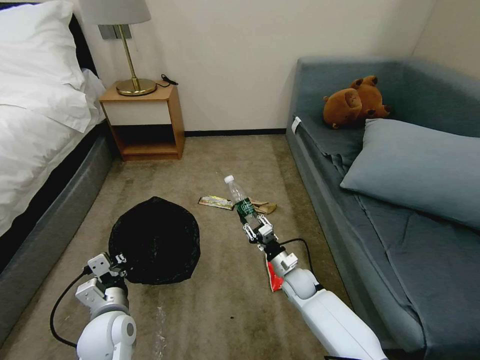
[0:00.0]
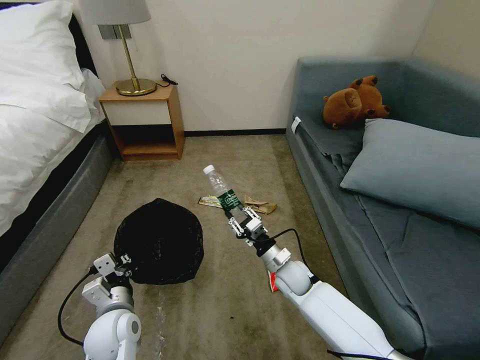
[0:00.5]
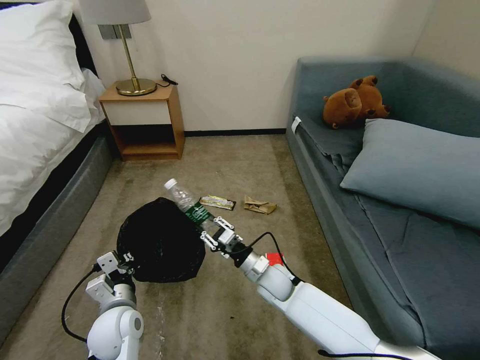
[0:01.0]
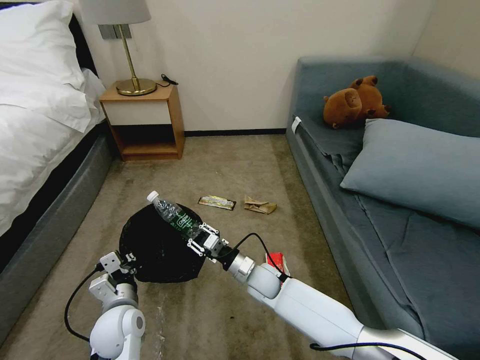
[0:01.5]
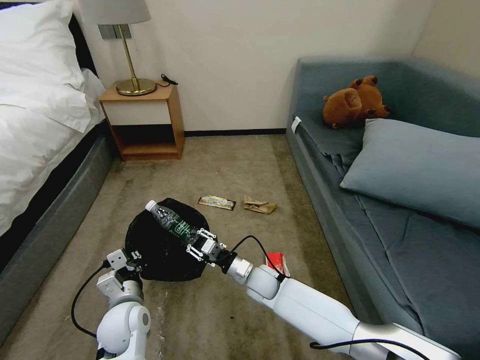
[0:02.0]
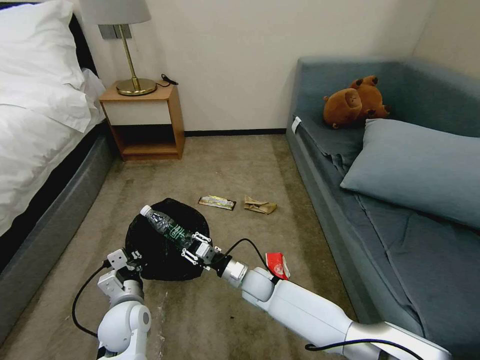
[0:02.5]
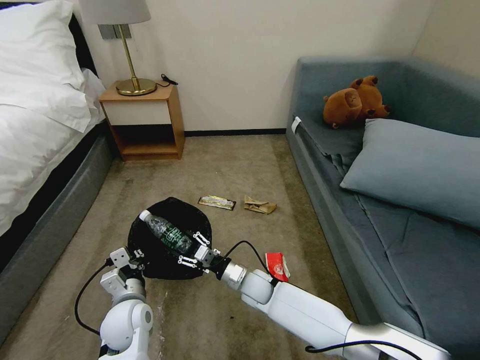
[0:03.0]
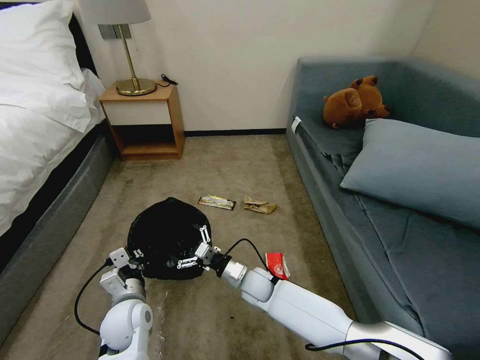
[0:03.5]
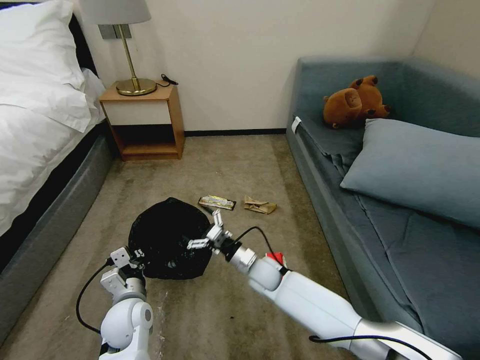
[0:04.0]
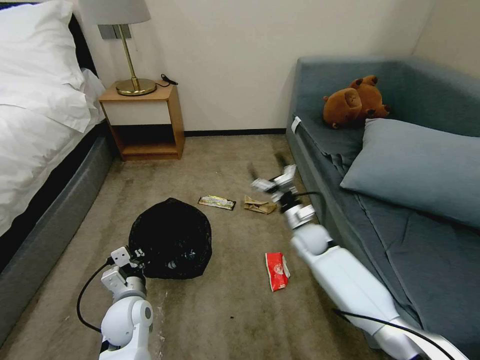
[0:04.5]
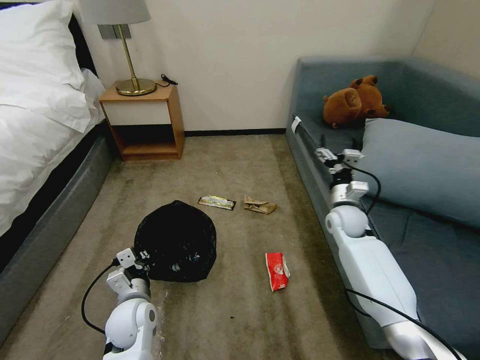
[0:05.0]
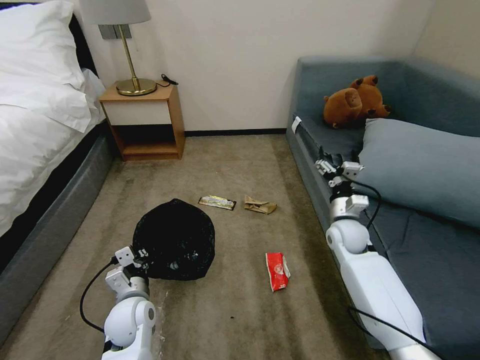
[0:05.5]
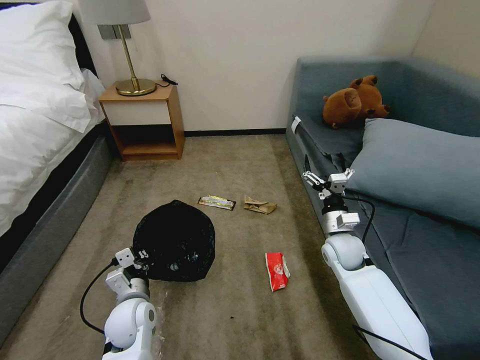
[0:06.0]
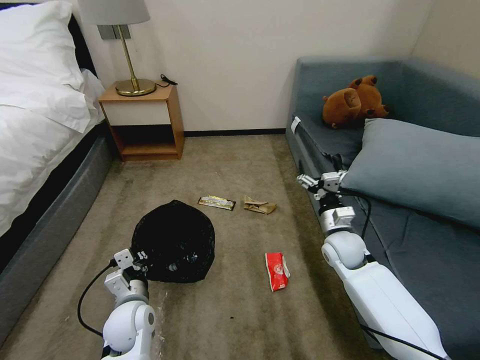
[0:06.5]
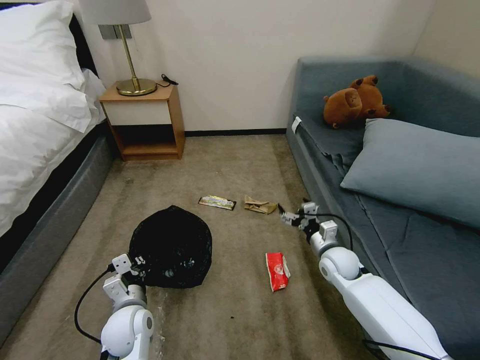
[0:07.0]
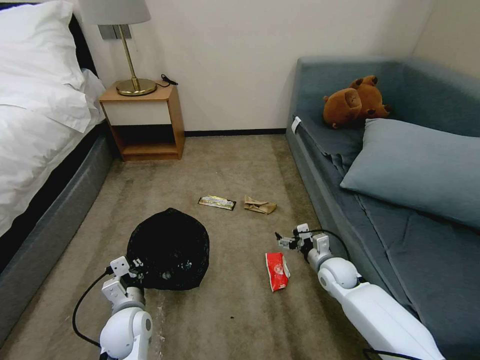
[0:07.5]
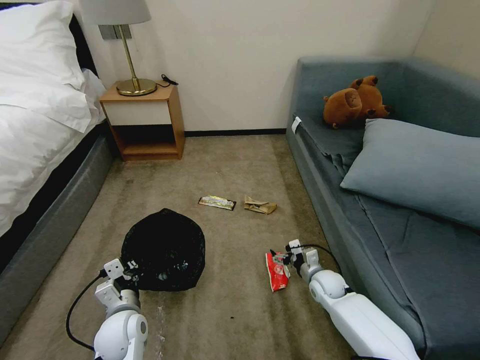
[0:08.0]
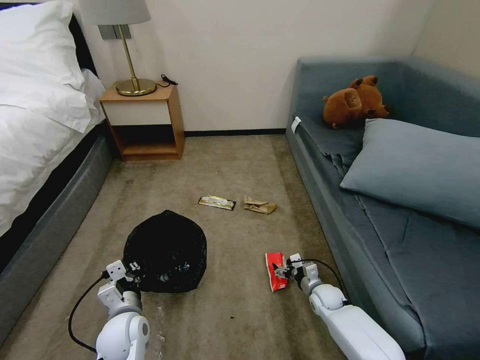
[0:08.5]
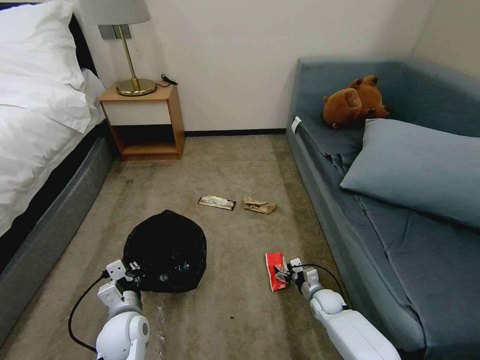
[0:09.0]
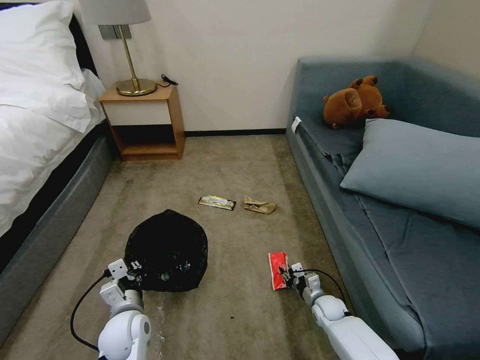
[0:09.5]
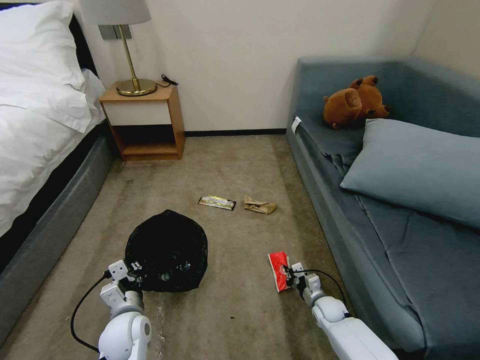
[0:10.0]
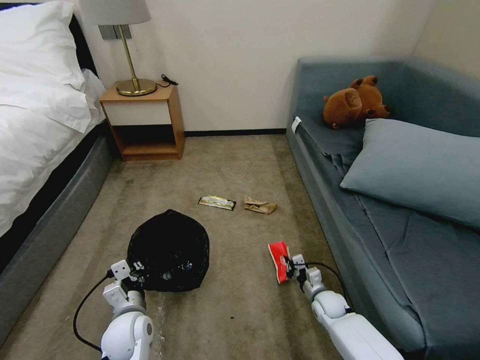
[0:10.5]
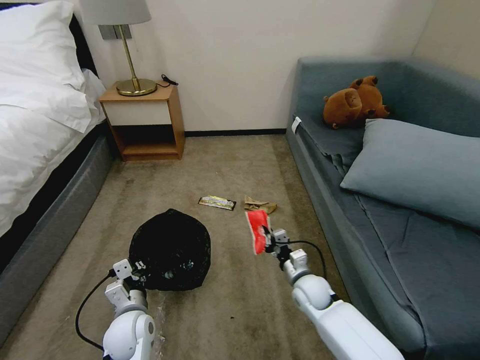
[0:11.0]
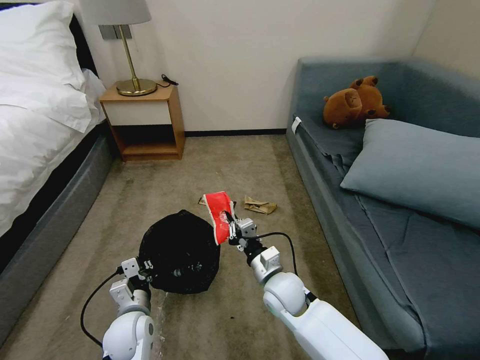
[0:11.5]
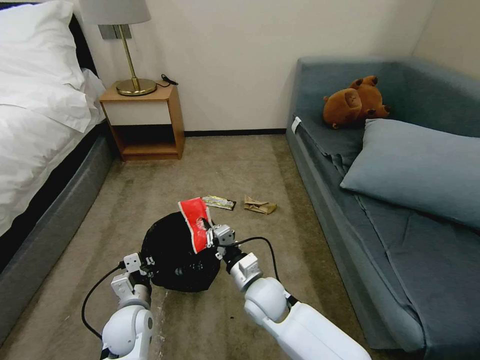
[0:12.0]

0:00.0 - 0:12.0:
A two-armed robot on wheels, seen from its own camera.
Task of the whole recording: Pick up the trash bin, then pick up the garbage on the floor and place it into the trash bin.
0:00.0 - 0:02.0: The right gripper shifts some 15 cm to the left.
0:02.0 - 0:04.0: The right gripper opens its fingers.
0:04.0 - 0:06.0: The right gripper travels to the right and upward by about 20 cm.
0:06.0 - 0:08.0: The right gripper goes some 15 cm downward.
0:08.0 - 0:10.0: The right gripper travels downward by roughly 10 cm, and closes its fingers.
0:10.0 - 0:12.0: The right gripper goes some 30 cm to the left and upward.

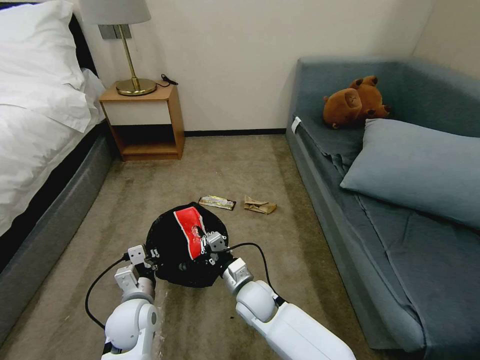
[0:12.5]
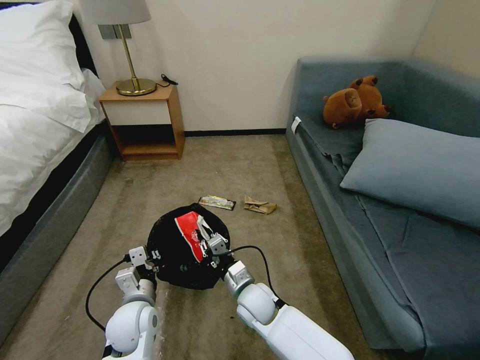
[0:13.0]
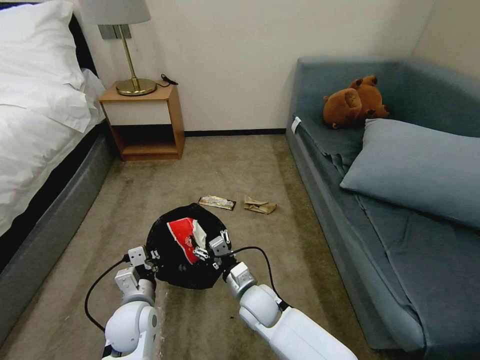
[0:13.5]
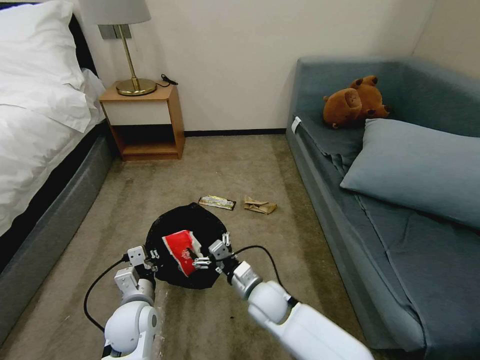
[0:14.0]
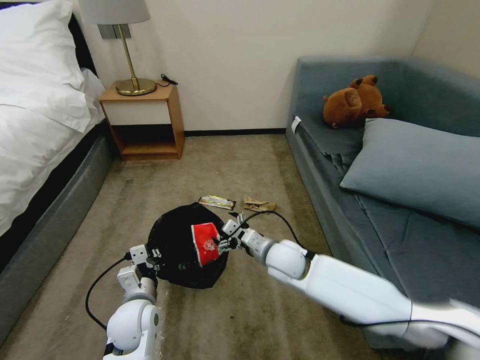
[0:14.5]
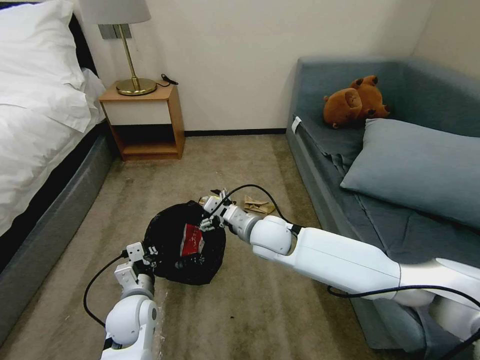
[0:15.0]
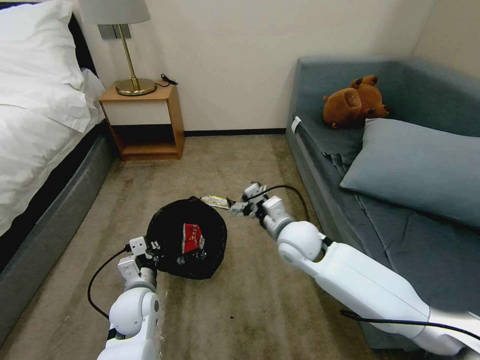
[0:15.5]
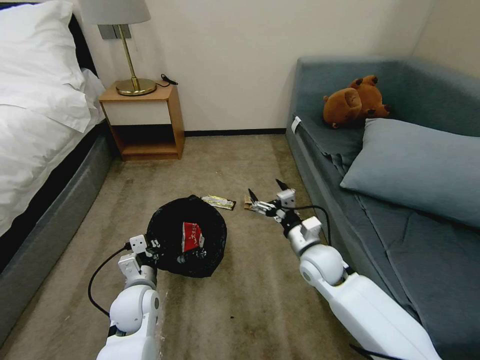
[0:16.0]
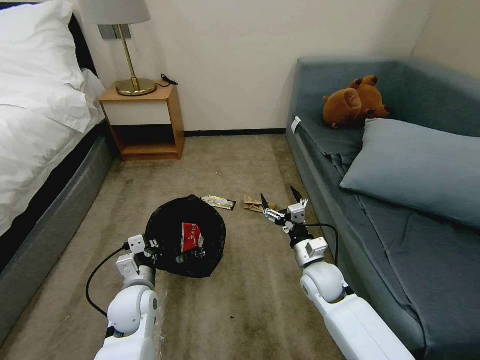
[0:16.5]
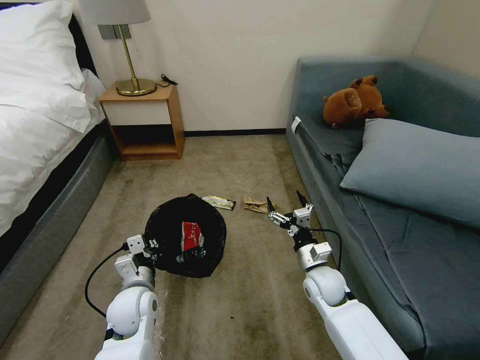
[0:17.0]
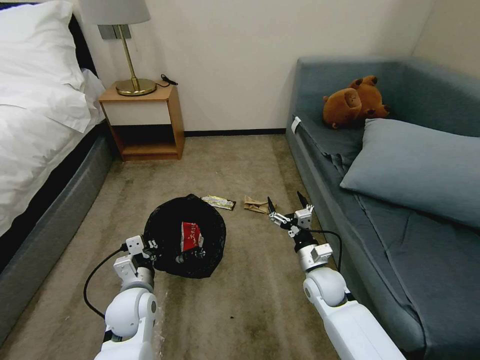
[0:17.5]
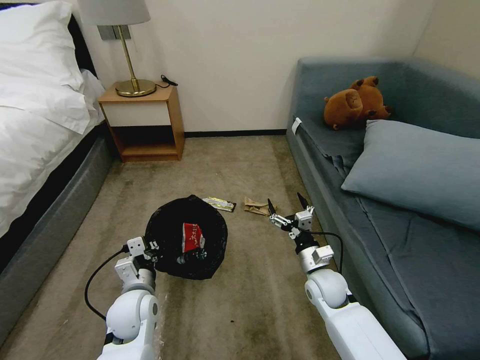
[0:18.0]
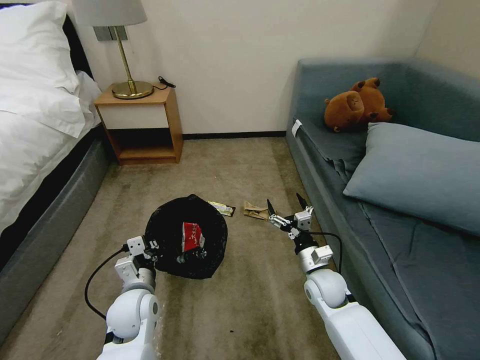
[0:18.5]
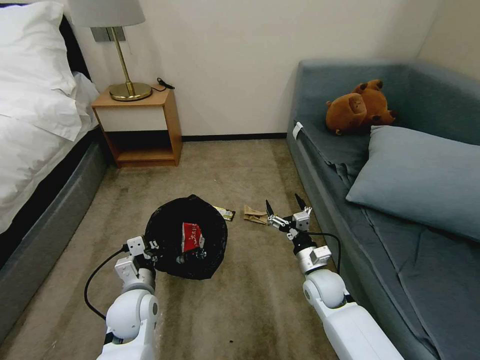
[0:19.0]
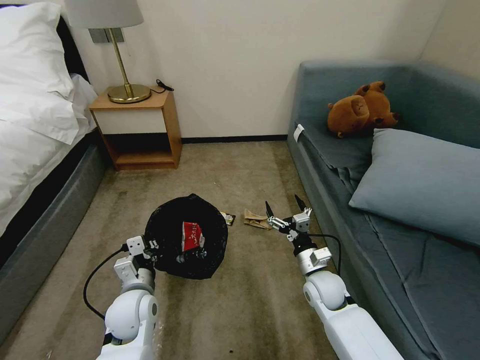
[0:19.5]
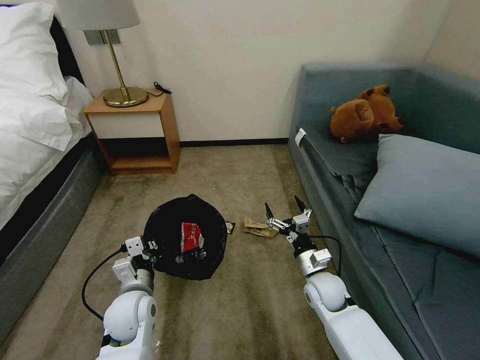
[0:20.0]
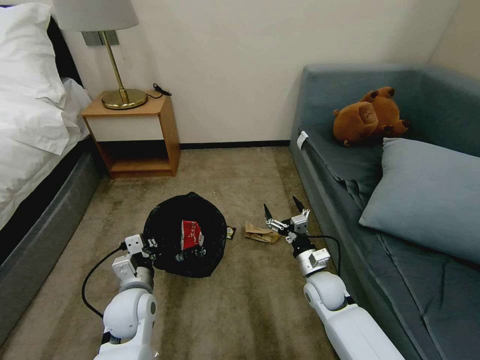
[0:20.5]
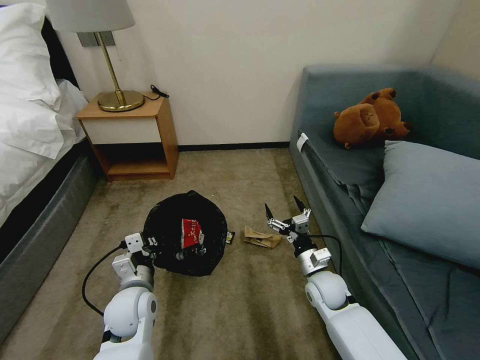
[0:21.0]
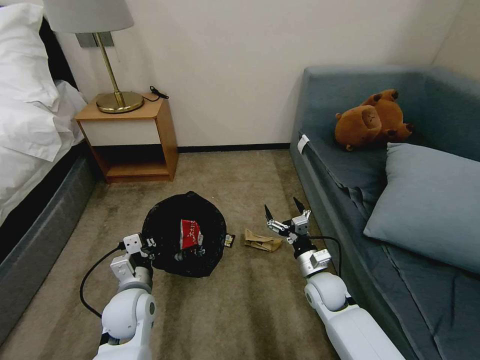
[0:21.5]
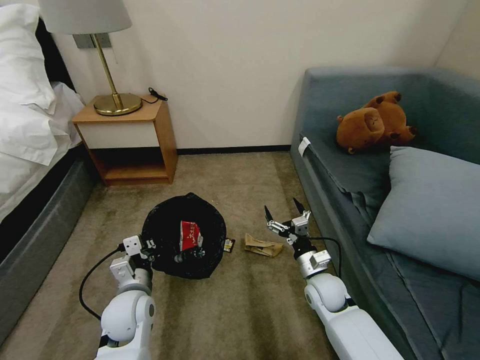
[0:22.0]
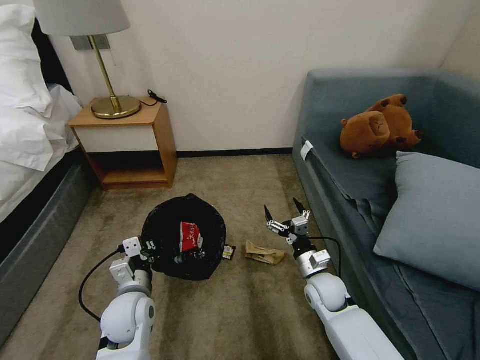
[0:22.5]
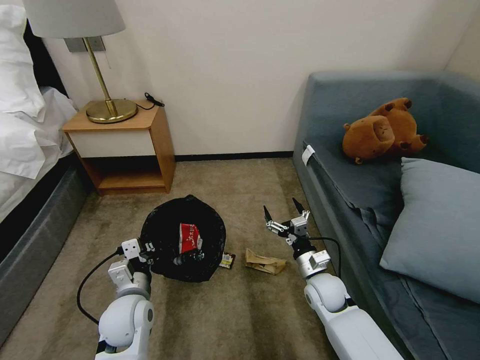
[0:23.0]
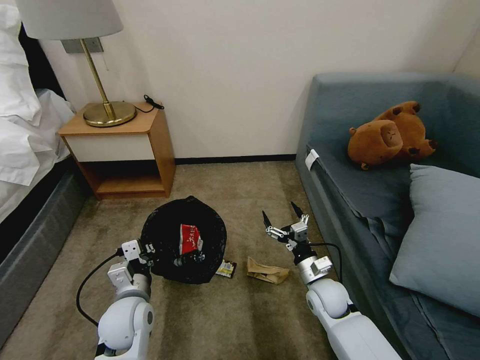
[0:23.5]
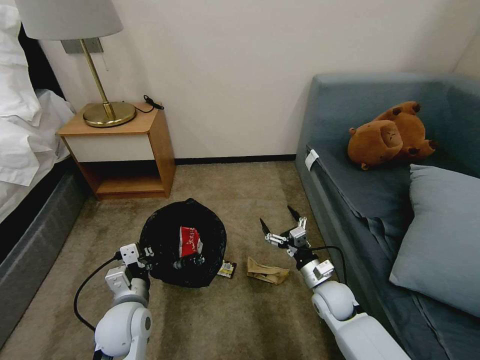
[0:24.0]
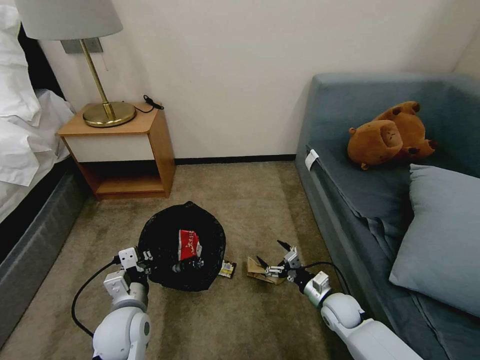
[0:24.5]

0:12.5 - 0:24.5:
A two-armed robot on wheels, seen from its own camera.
Task of the whole recording: Pick up the trash bin, then pick up the garbage on the floor and place it into the trash bin.
0:12.5 - 0:14.5: The right gripper shifts approximately 15 cm upward, to the right and forward, and opens up.
0:14.5 - 0:16.5: The right gripper is displaced to the right by some 10 cm.
0:16.5 - 0:18.5: The grippers make only small movements.
0:22.5 - 0:24.5: The right gripper goes roughly 10 cm downward and to the right.

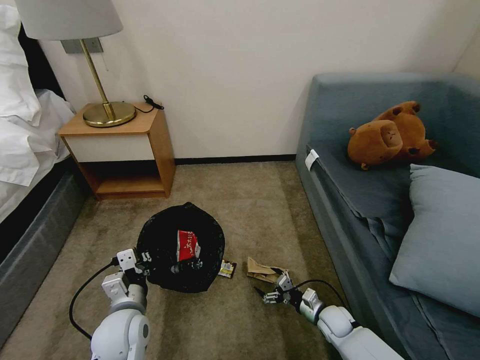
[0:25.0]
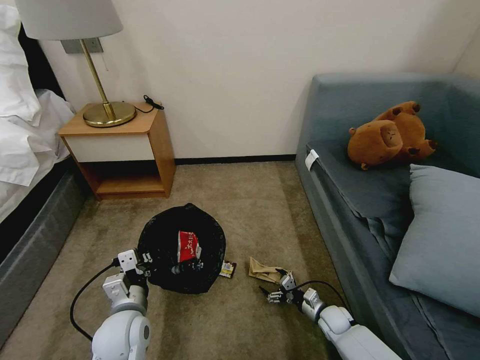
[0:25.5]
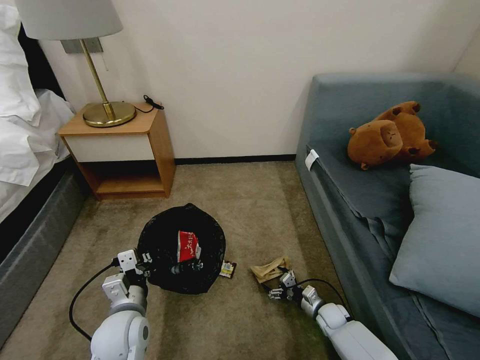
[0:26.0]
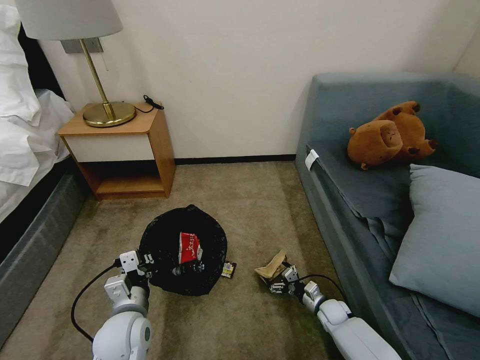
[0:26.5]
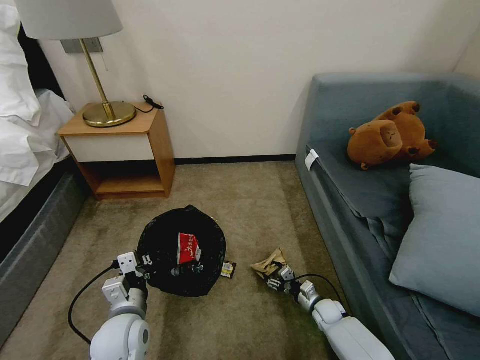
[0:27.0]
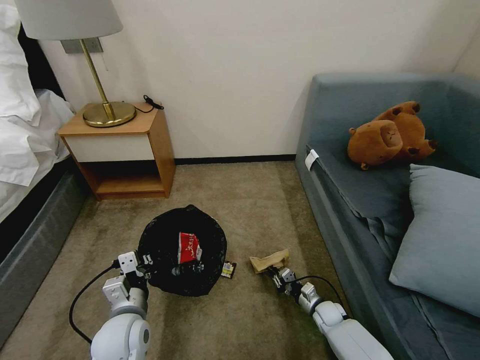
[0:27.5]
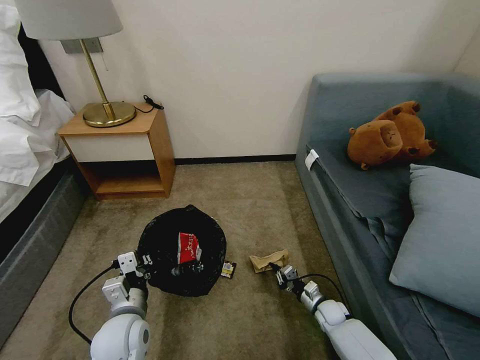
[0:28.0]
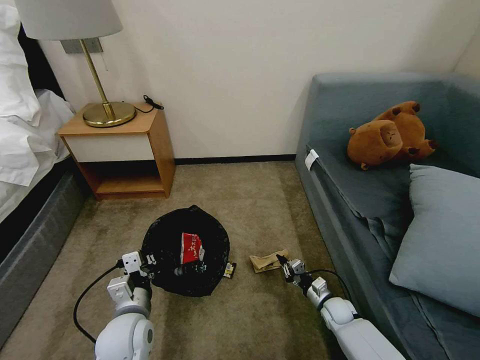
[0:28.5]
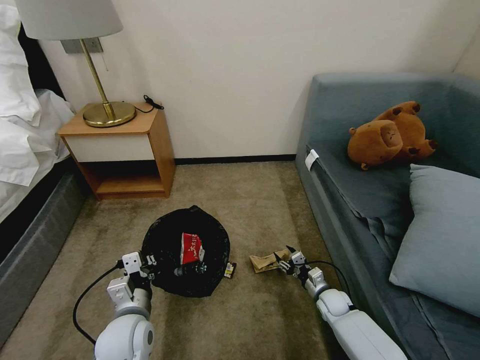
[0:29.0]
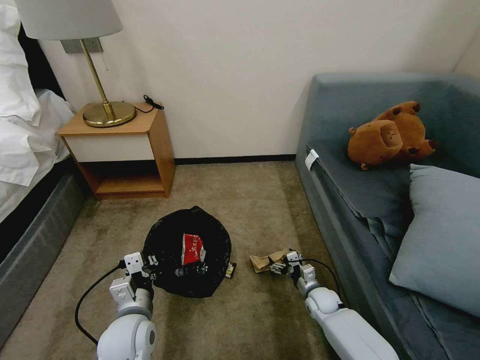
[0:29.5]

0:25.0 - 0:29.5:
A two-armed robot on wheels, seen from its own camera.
Task of the whole recording: Pick up the trash bin, then pick up the garbage on the floor and place it into the trash bin.
0:25.0 - 0:27.0: The right gripper ends up roughly 5 cm from where it was.
0:27.0 - 0:29.5: The right gripper moves approximately 5 cm, and closes, then reopens.
